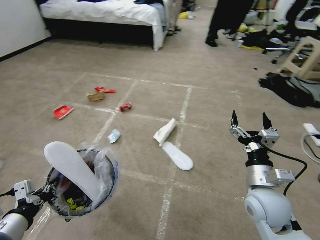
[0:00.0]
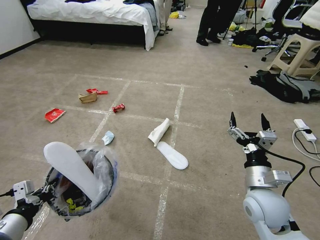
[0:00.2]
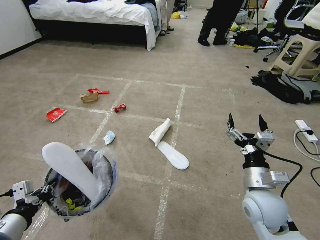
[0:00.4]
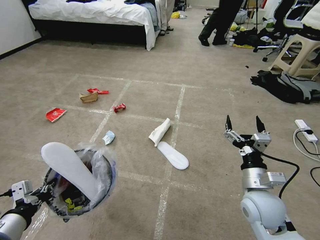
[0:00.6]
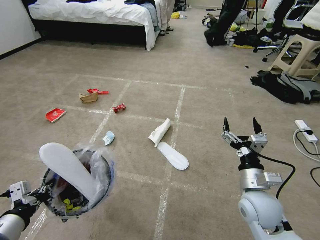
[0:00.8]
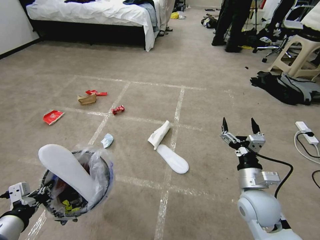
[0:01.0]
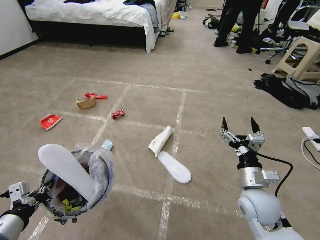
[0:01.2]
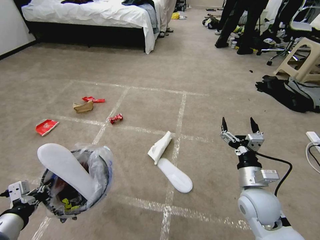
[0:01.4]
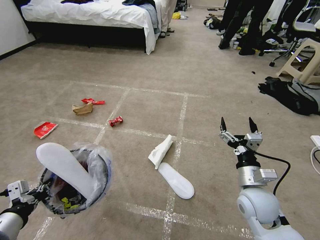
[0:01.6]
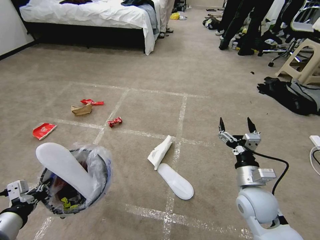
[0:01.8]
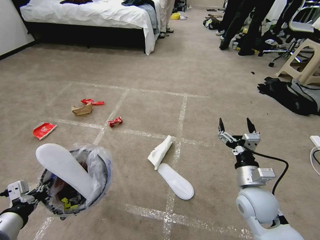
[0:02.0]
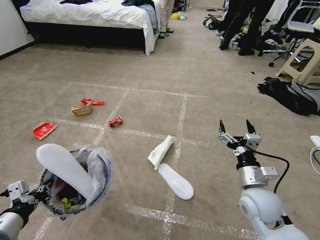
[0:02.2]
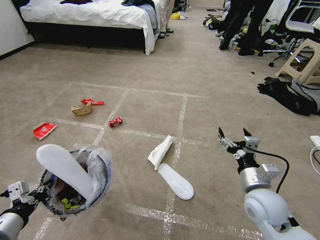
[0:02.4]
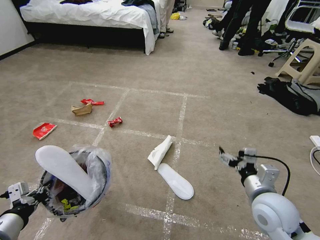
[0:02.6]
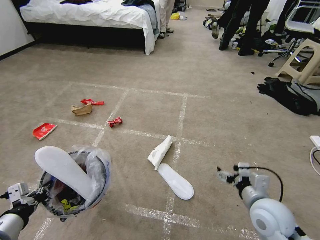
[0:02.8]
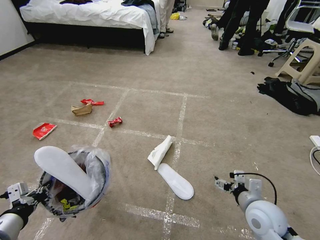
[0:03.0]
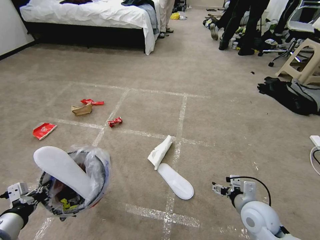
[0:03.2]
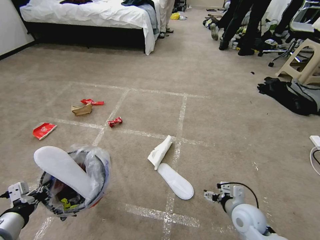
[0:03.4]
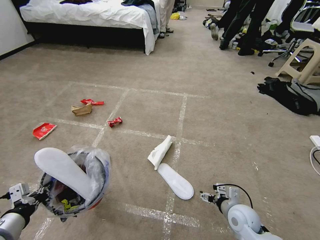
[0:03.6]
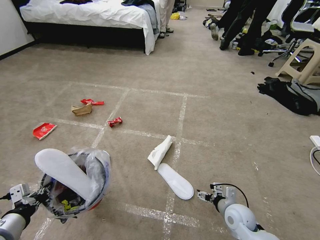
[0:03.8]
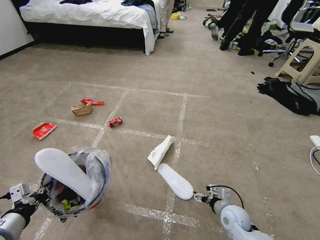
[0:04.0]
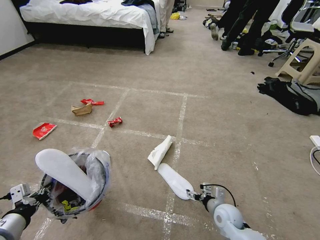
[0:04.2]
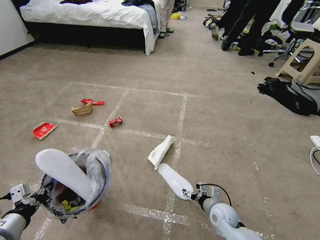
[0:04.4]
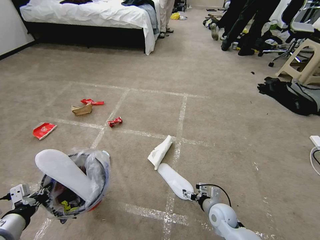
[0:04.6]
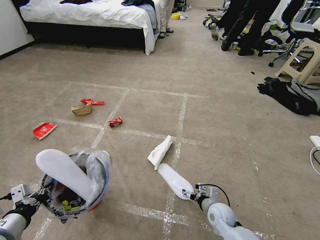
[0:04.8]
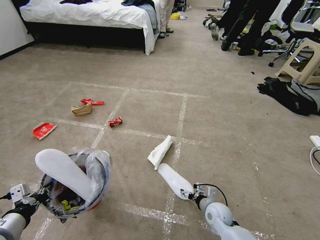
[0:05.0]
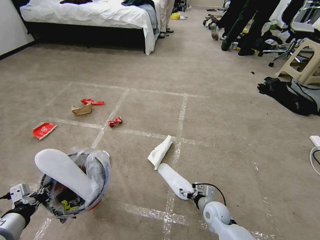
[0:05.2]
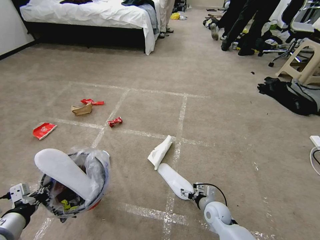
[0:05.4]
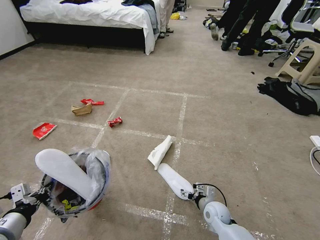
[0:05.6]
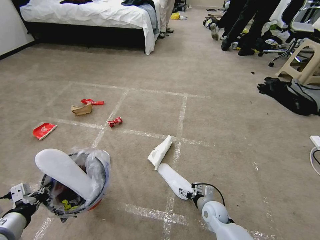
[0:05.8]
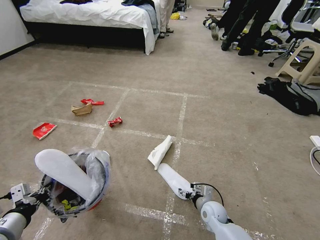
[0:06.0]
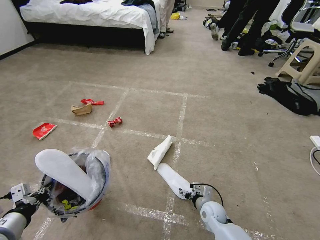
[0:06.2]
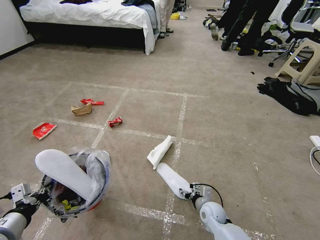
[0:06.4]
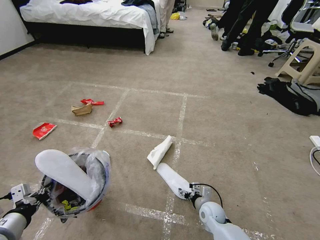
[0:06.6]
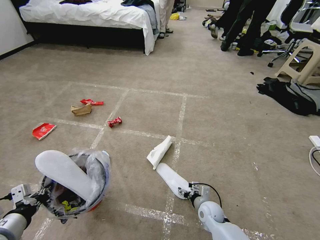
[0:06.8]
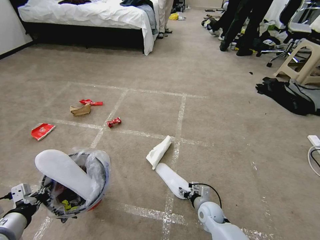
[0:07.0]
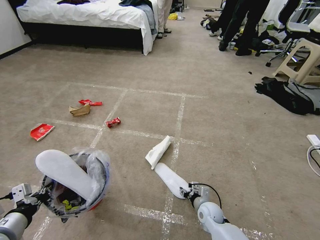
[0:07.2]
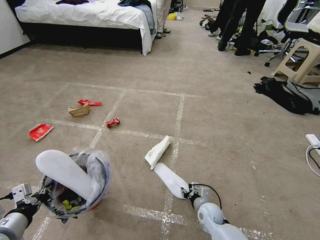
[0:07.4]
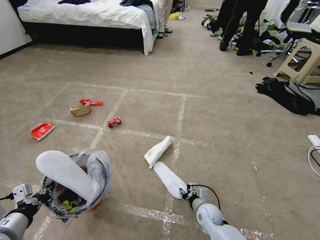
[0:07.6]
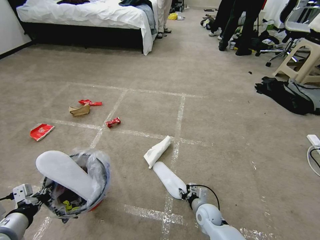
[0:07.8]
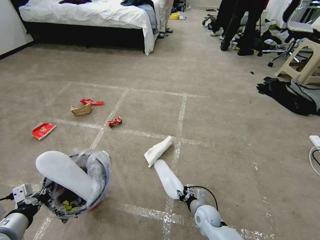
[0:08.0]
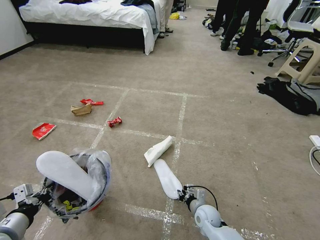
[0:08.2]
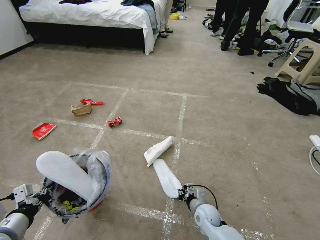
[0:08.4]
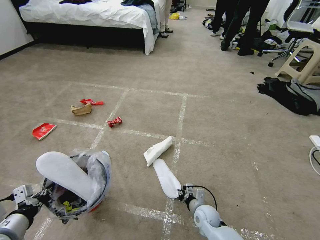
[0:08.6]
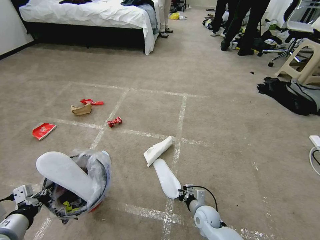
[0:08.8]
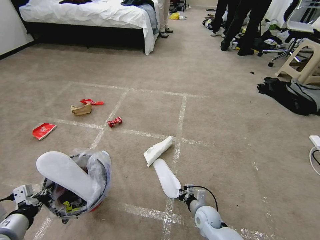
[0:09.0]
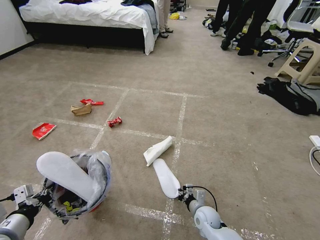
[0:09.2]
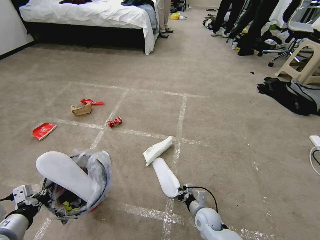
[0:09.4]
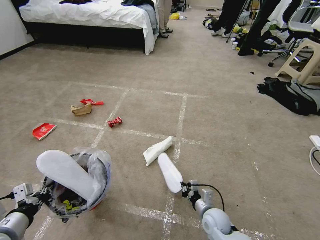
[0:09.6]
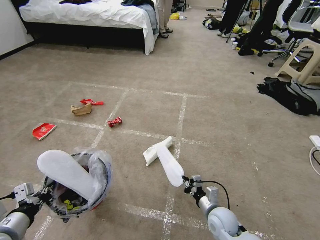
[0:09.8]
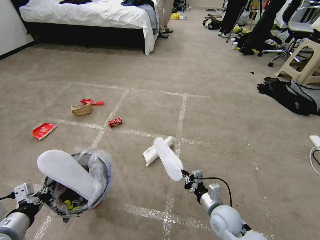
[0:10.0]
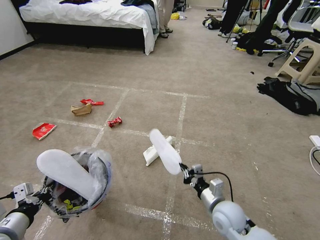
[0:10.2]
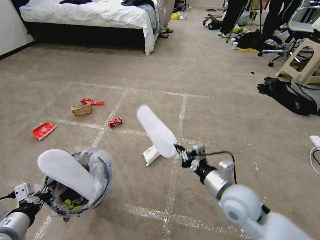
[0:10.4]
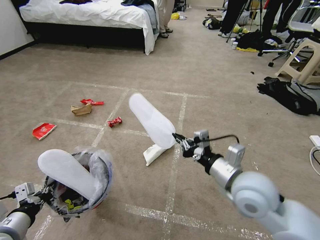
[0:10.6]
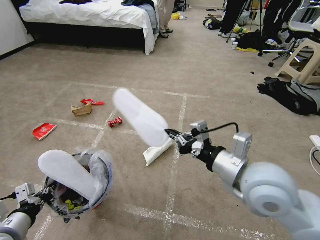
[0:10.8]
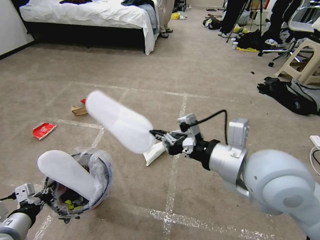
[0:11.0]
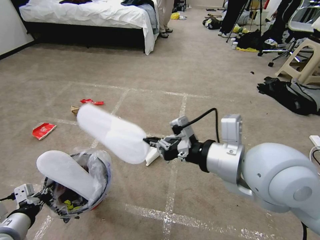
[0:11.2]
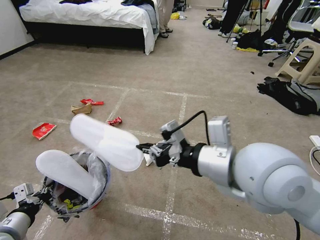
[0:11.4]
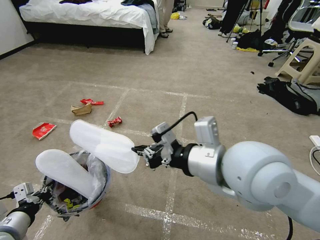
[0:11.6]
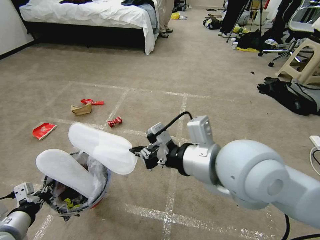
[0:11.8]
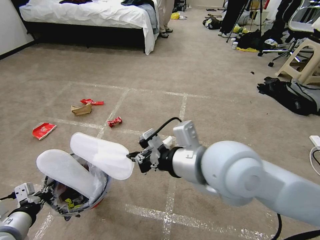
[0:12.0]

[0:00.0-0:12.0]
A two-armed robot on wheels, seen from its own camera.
Task of the whole recording: Pick up the trash bin and place the garbage on the floor into it.
0:03.0 to 0:04.4: The right gripper is displaced downward by roughly 15 cm.
0:04.4 to 0:06.0: The grippers move only a little.
0:06.0 to 0:07.6: The right gripper closes its fingers.
0:07.6 to 0:09.0: The right gripper closes.
0:09.0 to 0:10.4: The right gripper shifts roughly 25 cm upward.
0:10.4 to 0:12.0: The right gripper travels upward and to the left by approximately 20 cm.

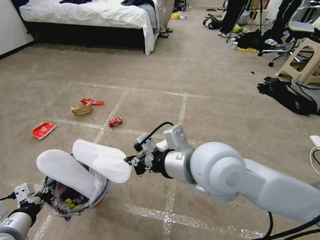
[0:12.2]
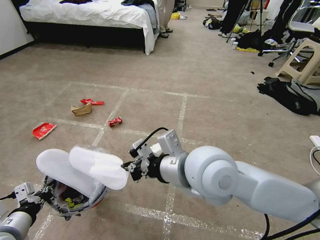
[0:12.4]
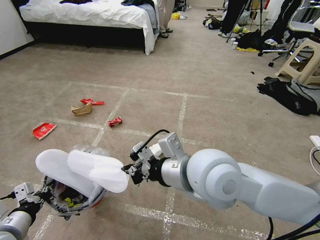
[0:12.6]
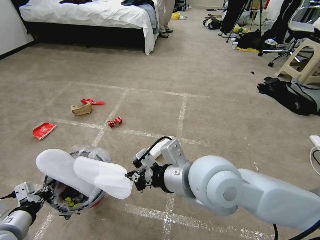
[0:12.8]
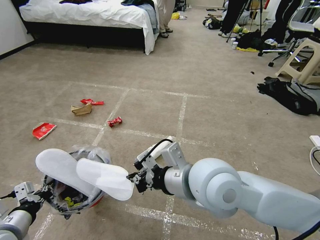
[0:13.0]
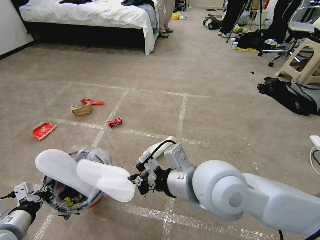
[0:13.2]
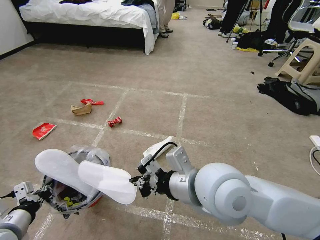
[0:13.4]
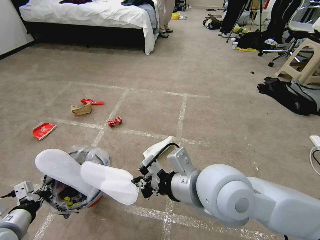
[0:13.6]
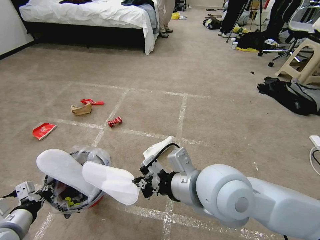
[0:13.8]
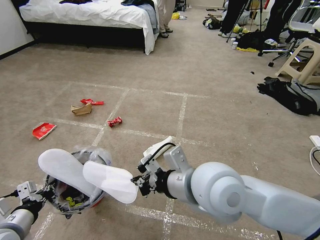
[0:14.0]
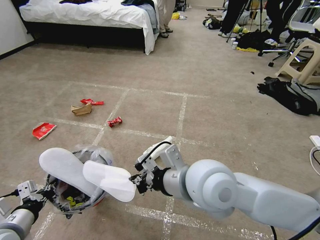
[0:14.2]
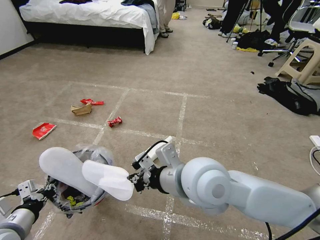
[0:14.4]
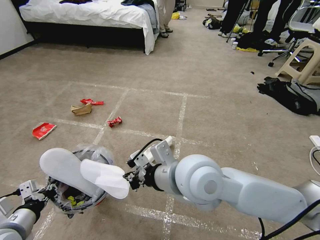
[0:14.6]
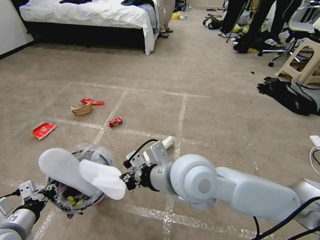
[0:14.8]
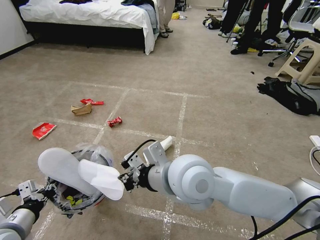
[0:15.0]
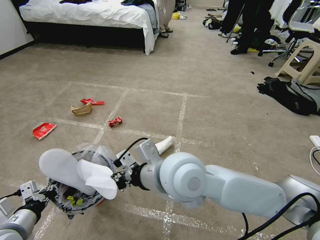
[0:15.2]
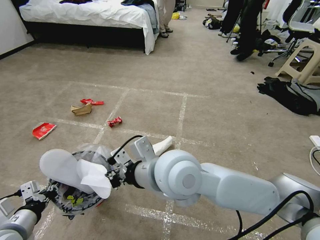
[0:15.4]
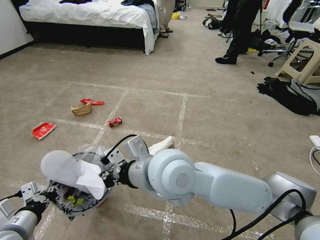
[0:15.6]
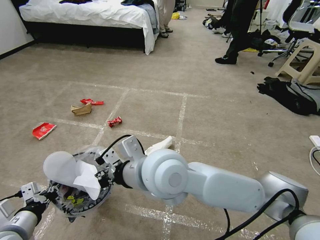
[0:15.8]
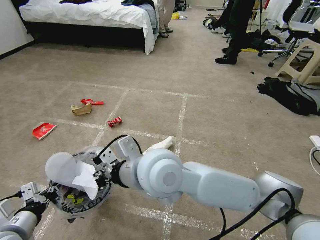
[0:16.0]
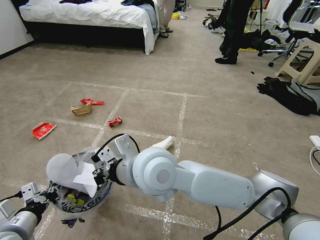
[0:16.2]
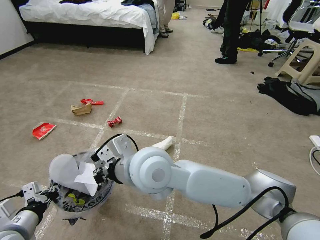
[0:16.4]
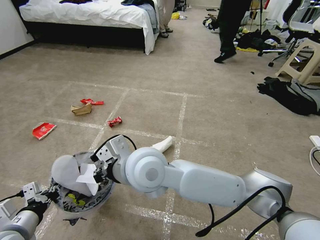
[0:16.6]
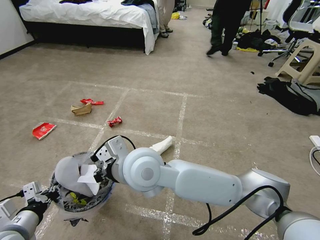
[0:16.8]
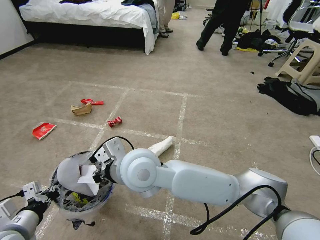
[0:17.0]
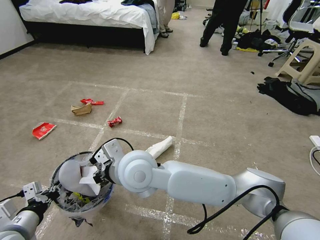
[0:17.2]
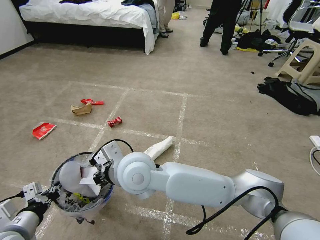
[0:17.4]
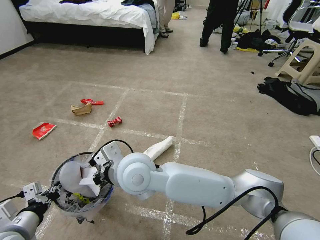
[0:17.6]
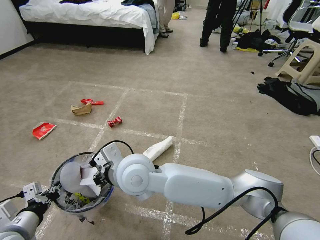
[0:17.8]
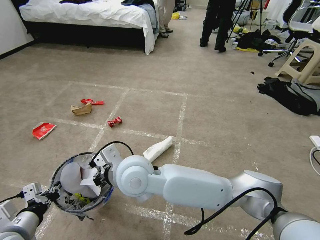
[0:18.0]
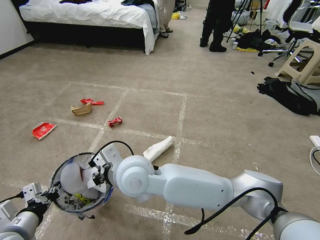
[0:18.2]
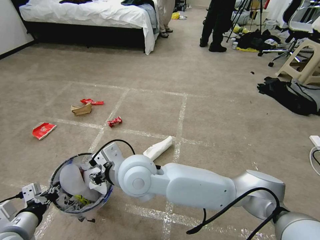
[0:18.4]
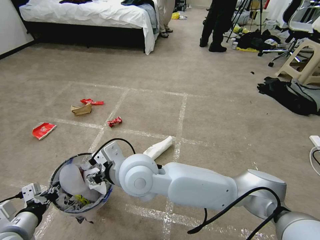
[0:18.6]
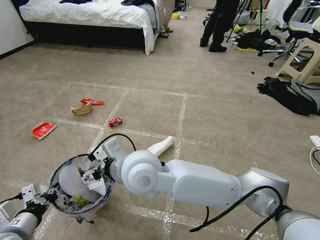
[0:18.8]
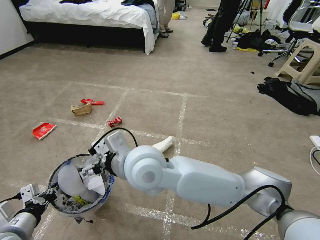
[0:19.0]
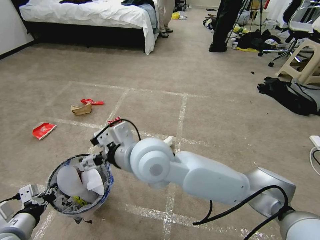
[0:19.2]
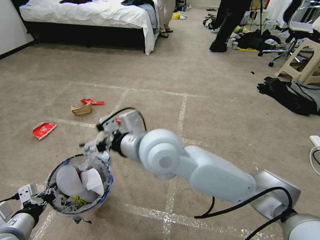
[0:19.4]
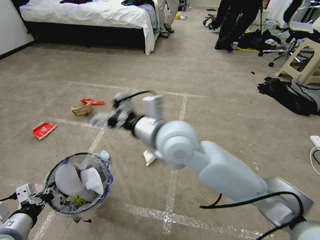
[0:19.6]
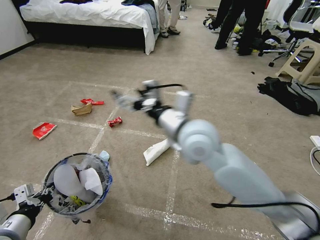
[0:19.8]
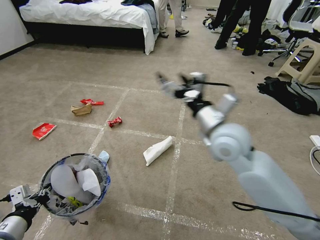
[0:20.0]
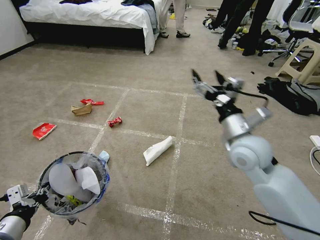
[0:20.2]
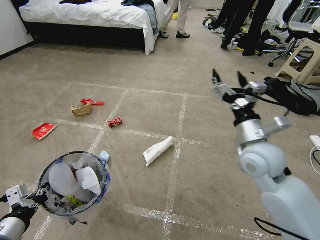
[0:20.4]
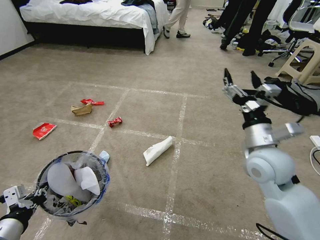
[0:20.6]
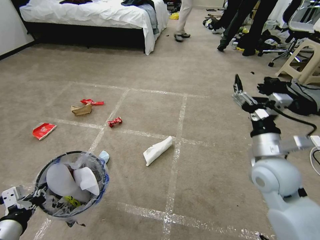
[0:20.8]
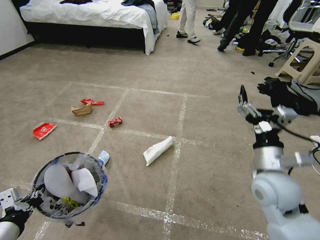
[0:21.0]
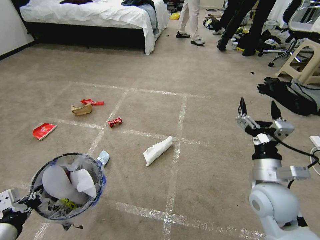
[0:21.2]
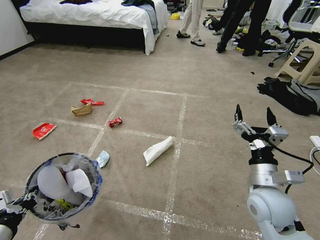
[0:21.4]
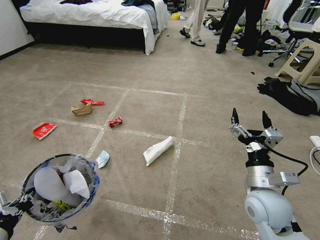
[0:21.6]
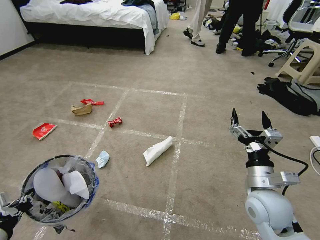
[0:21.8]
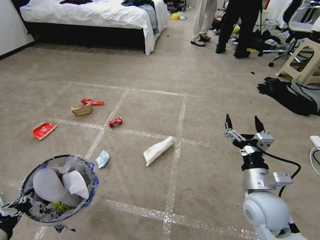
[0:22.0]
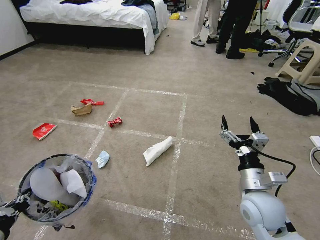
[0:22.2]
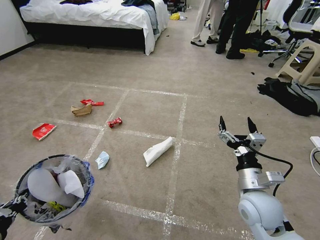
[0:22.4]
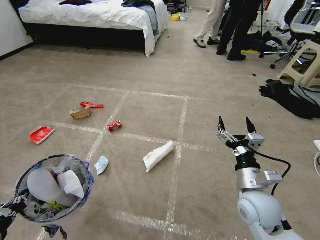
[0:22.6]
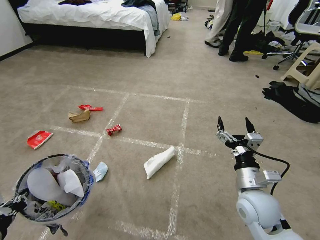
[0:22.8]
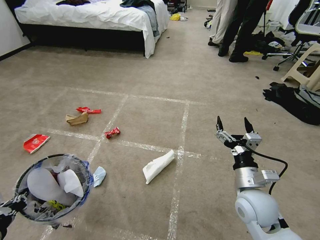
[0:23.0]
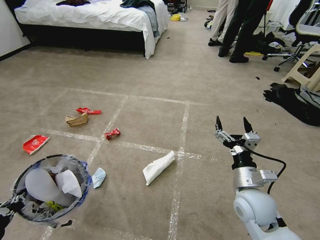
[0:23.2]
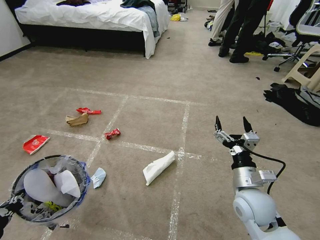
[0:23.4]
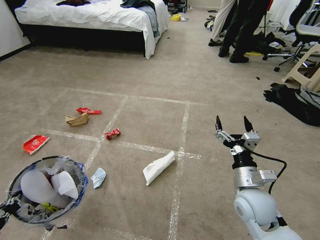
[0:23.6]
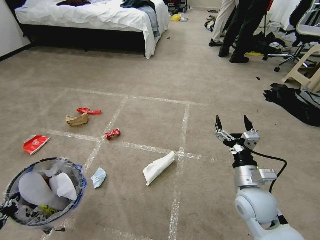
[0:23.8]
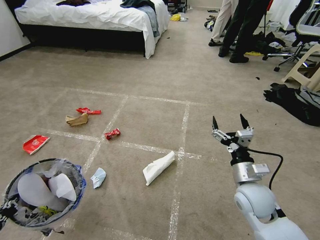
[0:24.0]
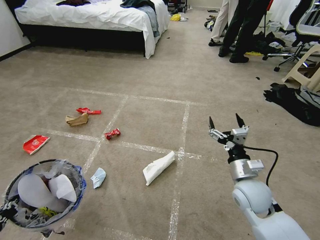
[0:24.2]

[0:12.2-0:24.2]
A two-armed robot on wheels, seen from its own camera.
Task of the whole recording: Pick up the trash bin and place the garbage on the floor into it.
0:12.2 to 0:13.8: There are only small adjustments of the grippers.
0:13.8 to 0:15.2: The right gripper moves to the left, some 5 cm.
0:15.2 to 0:16.6: The right gripper travels to the left by approximately 10 cm.
0:16.6 to 0:18.2: The right gripper moves approximately 5 cm.
0:18.2 to 0:19.8: The right gripper travels to the right and upward by about 15 cm, and opens up.
0:19.8 to 0:21.2: The right gripper heads to the right, downward and backward, covering approximately 25 cm.
